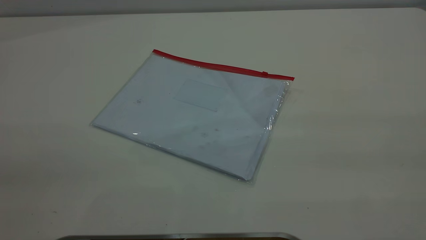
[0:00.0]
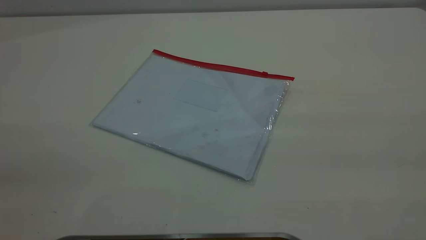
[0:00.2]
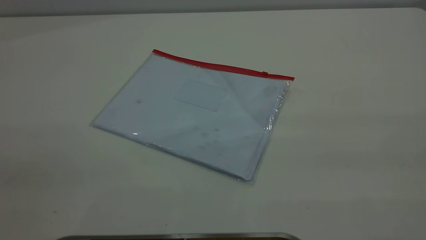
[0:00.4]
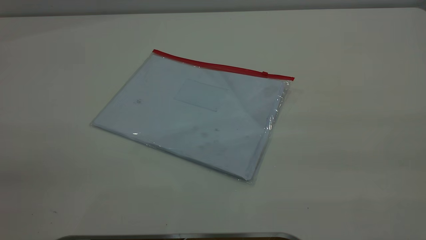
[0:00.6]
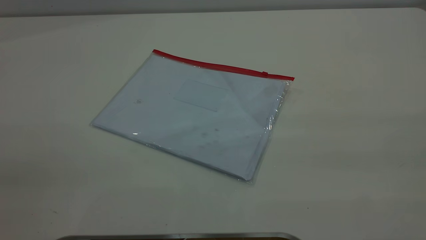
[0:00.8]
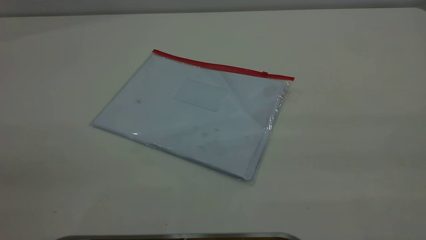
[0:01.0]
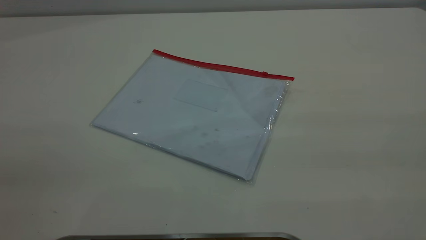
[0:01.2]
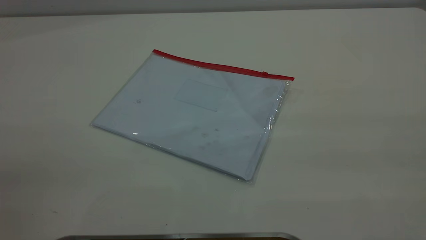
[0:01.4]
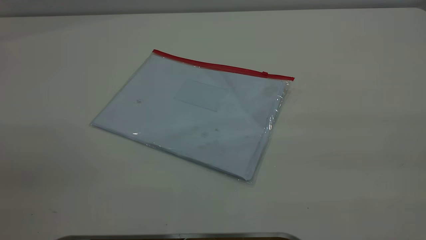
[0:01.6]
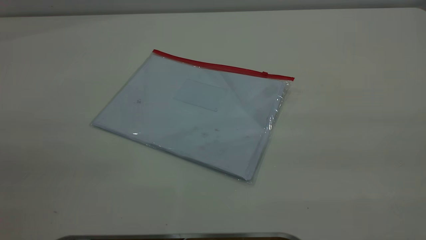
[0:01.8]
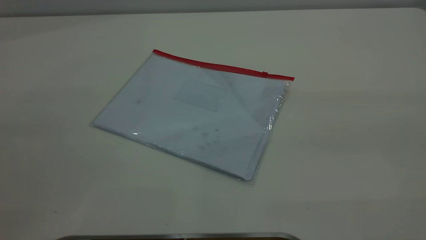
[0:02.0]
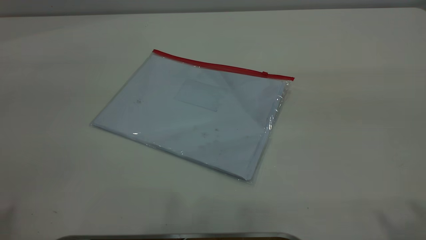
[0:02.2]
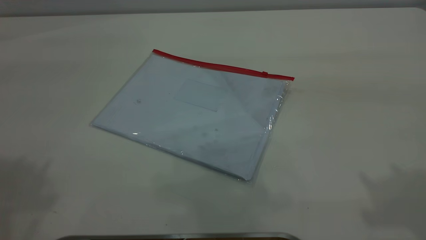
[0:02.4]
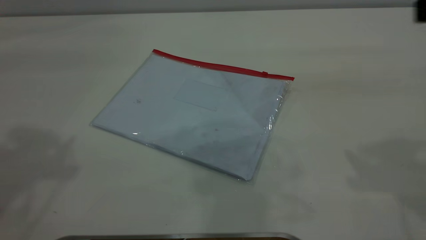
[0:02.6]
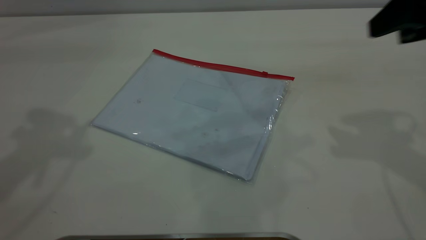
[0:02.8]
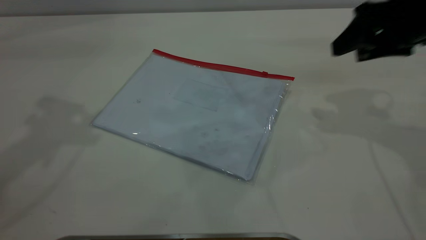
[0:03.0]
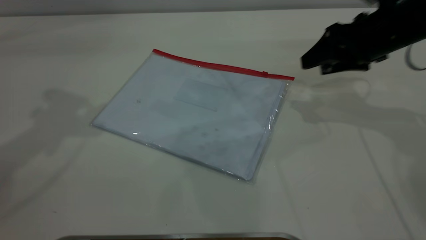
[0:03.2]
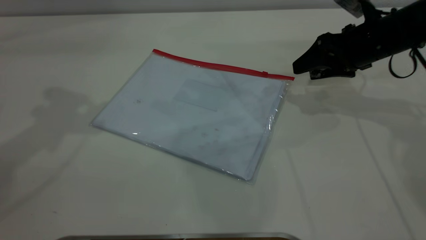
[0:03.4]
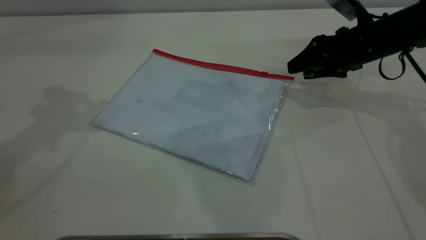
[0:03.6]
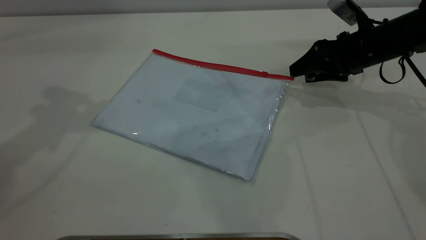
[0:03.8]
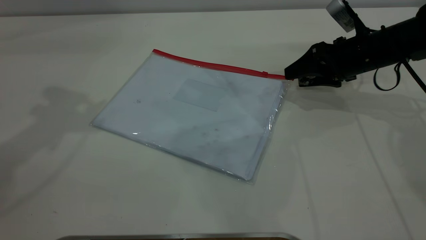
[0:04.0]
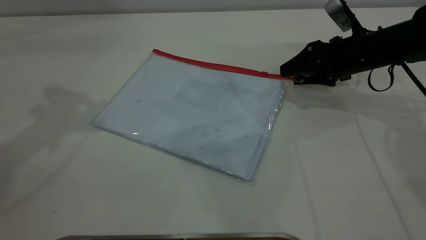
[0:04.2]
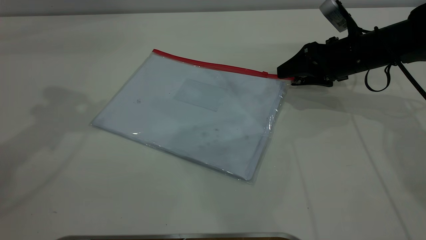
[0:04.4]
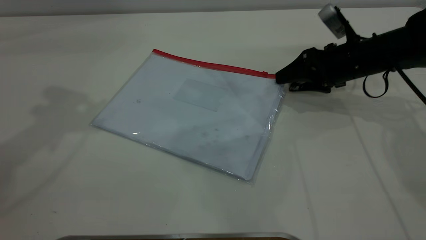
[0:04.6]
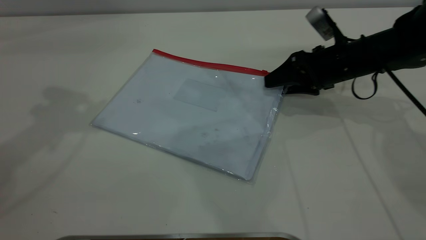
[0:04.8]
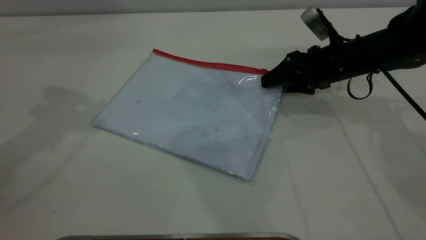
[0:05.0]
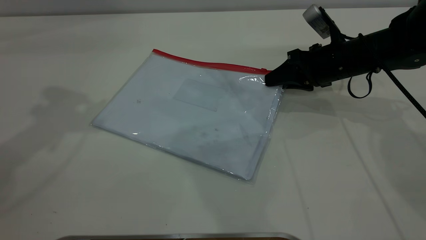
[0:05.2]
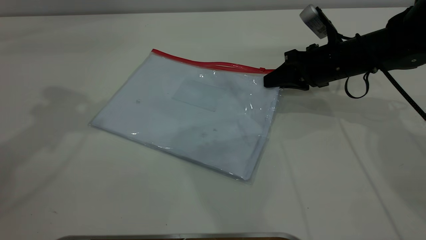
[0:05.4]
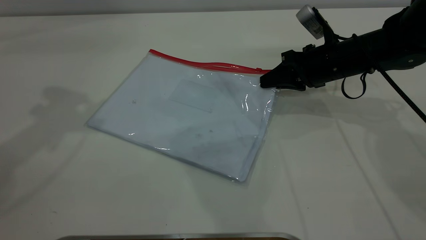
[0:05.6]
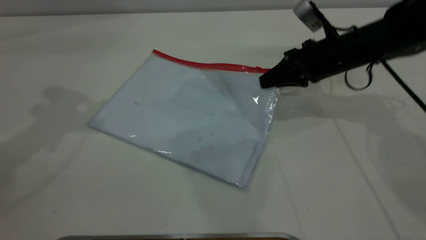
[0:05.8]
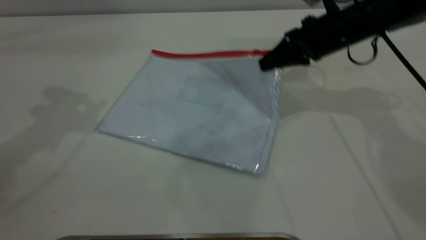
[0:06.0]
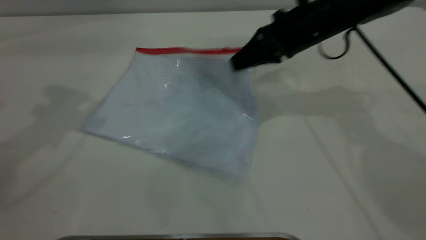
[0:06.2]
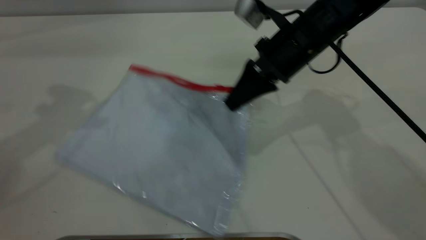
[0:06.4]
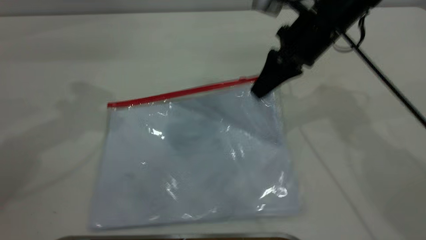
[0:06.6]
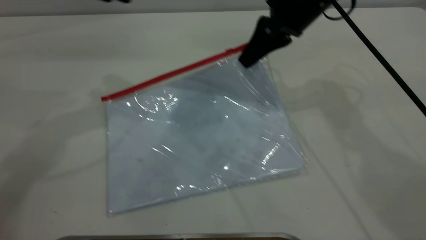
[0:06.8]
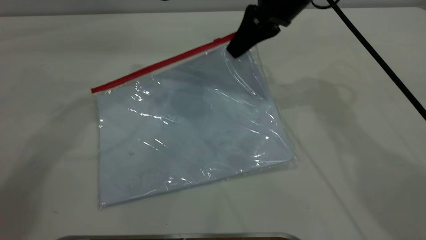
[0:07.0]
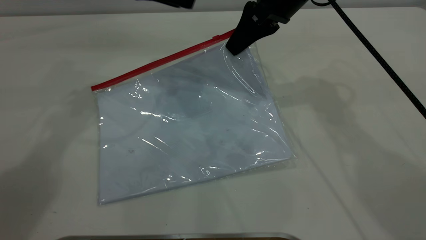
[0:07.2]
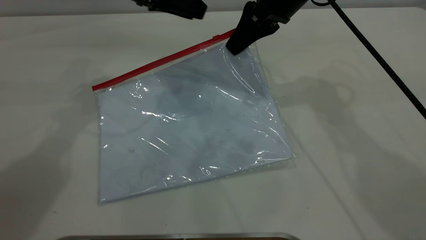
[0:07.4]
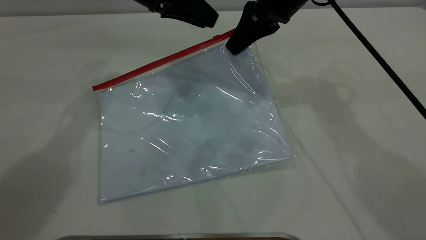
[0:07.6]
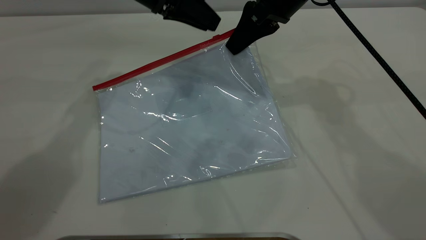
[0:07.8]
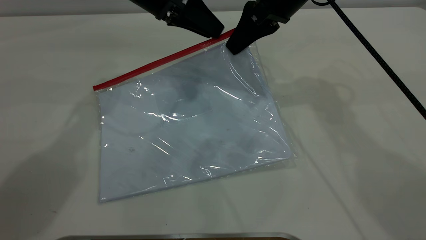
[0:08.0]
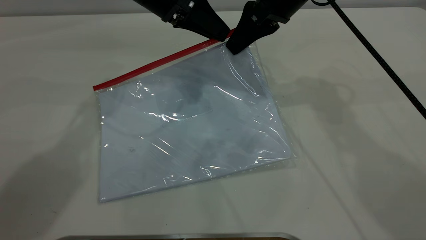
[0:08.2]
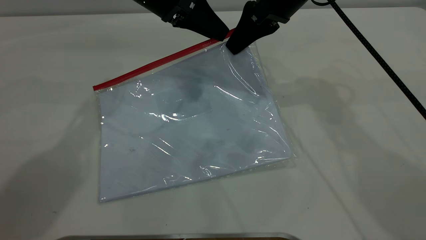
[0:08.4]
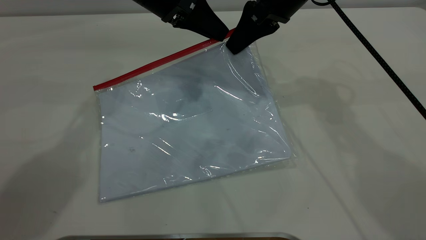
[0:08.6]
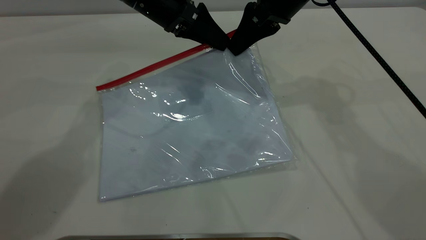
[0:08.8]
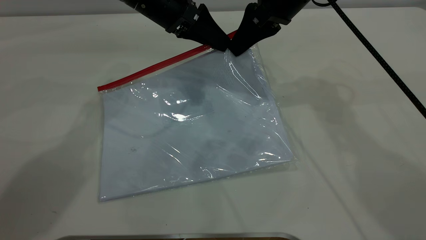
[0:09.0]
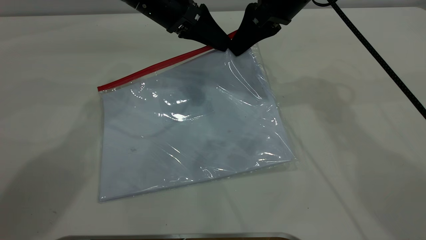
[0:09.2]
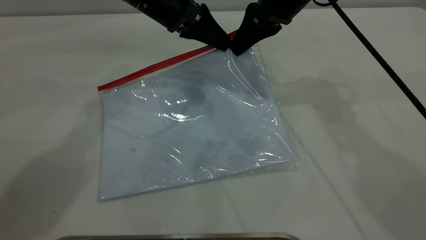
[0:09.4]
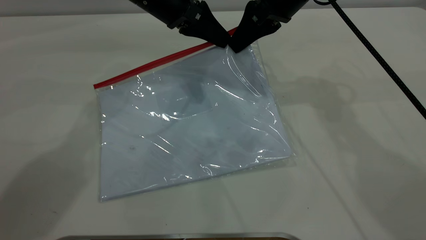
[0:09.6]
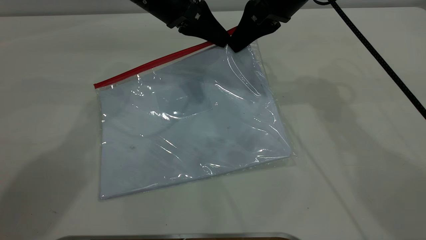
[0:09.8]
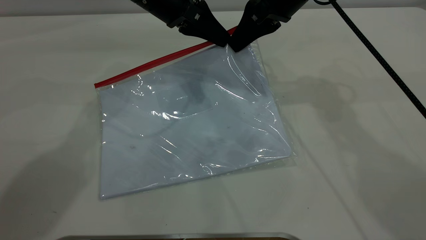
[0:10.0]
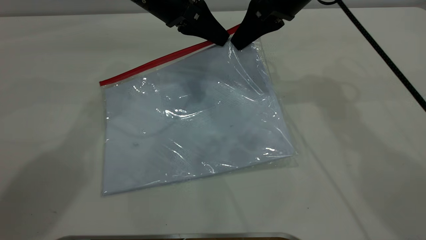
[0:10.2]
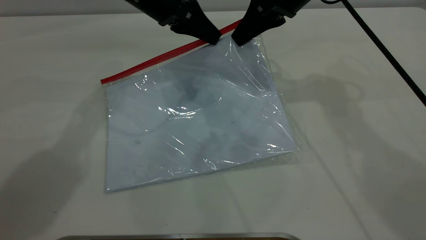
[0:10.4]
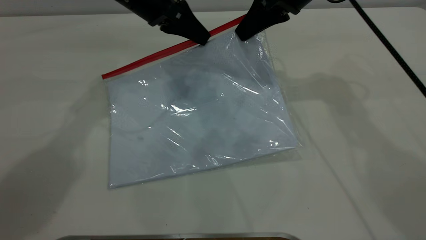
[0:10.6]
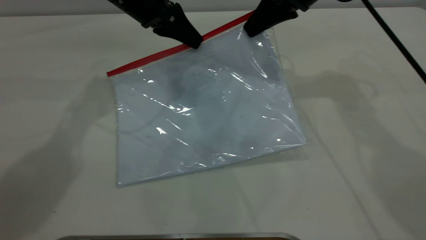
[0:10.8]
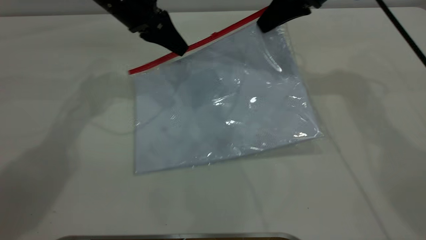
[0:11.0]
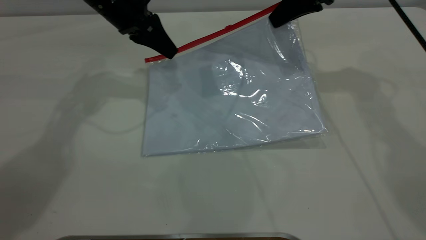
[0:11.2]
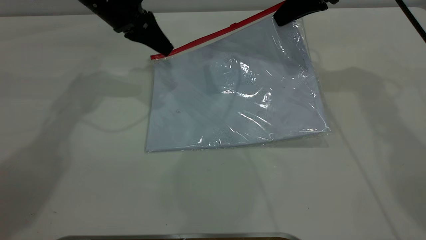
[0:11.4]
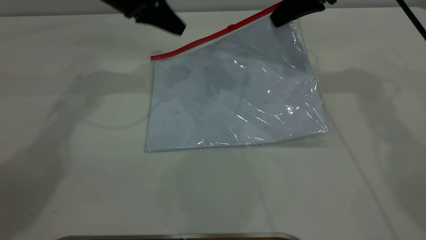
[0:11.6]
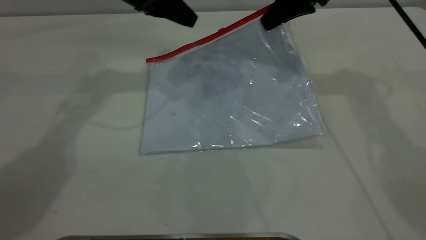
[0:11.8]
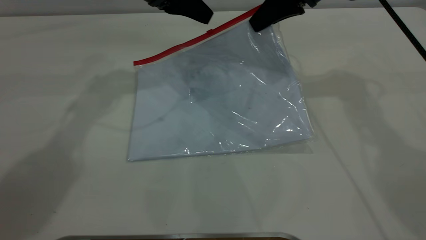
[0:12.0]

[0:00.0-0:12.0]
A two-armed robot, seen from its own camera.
Step, 0.0 to 6.0 s: Pick up the transparent plastic bag with the right gripper.
0.0 to 1.6 s: The two grippers keep their place.
1.6 to 3.0 s: The right gripper travels forward and downward by about 40 cm.
3.0 to 4.4 s: The right gripper travels downward and forward by roughly 15 cm.
4.4 to 6.0 s: The right gripper shifts about 10 cm upward and to the left, and closes.
6.0 to 7.6 s: The left gripper is displaced to the right, downward and forward by roughly 25 cm. The right gripper shifts roughly 10 cm upward and to the left.
7.6 to 9.0 s: The left gripper closes up.
9.0 to 10.4 s: The left gripper closes.
10.4 to 12.0 s: The left gripper opens its fingers.

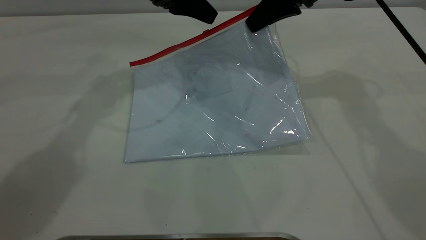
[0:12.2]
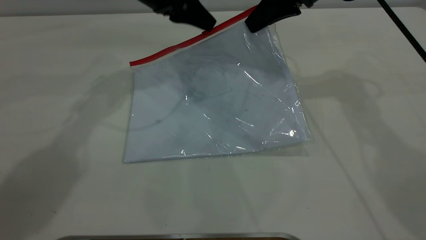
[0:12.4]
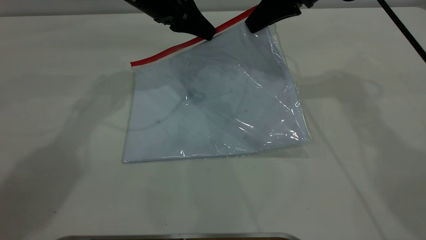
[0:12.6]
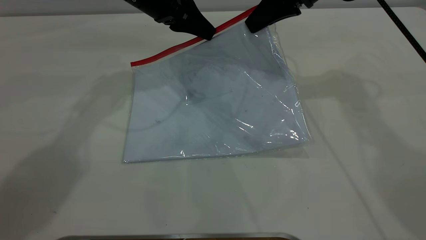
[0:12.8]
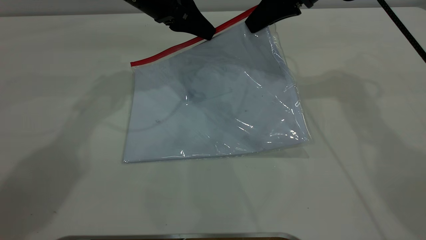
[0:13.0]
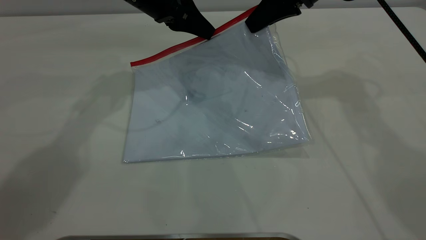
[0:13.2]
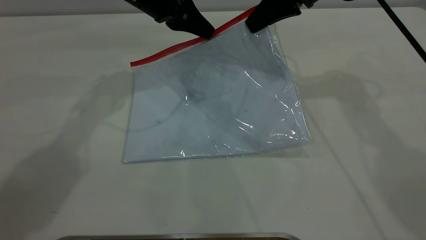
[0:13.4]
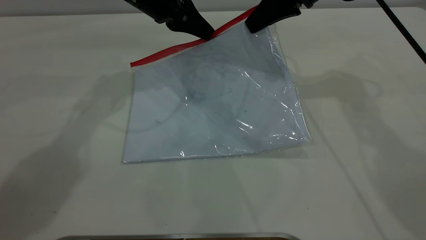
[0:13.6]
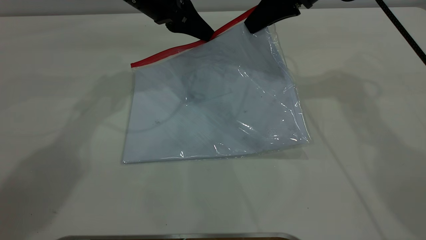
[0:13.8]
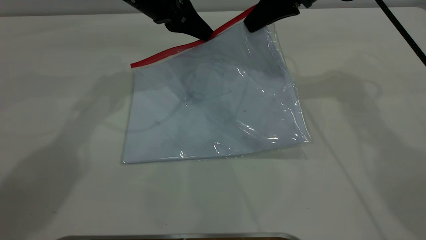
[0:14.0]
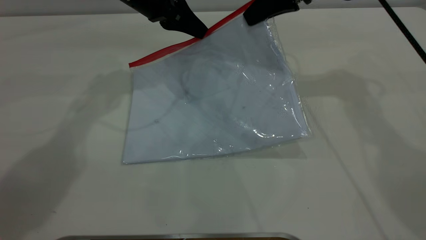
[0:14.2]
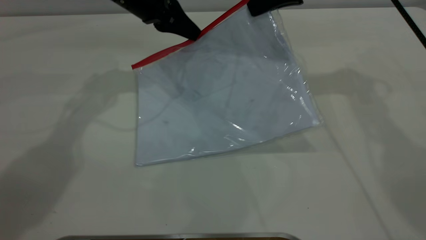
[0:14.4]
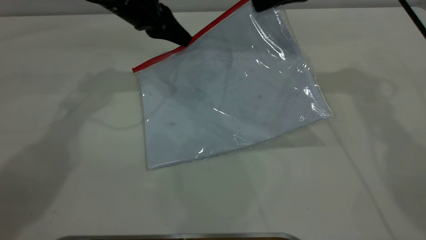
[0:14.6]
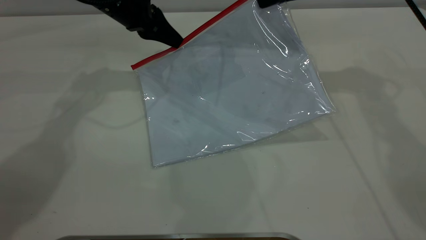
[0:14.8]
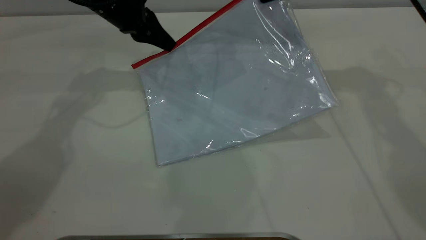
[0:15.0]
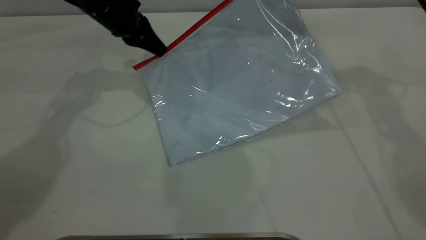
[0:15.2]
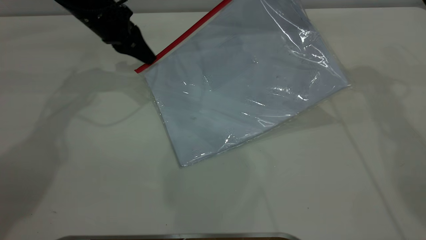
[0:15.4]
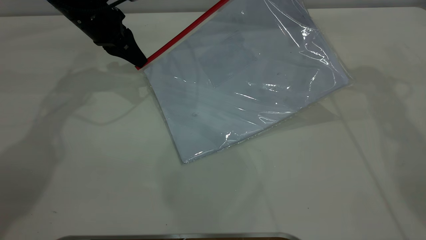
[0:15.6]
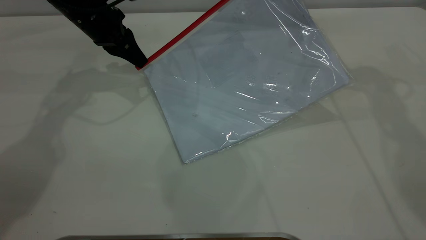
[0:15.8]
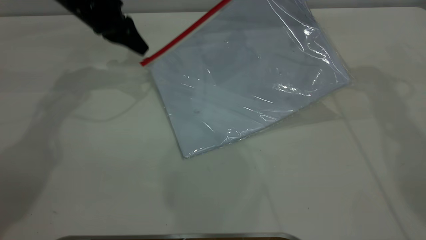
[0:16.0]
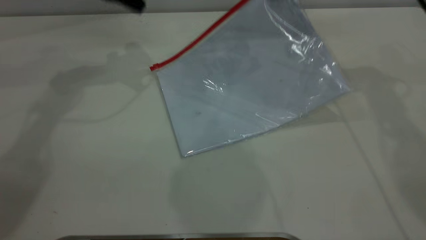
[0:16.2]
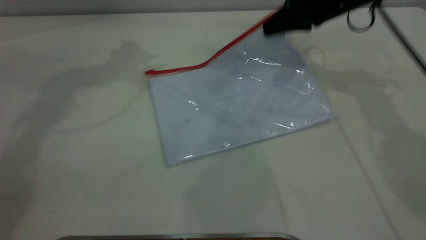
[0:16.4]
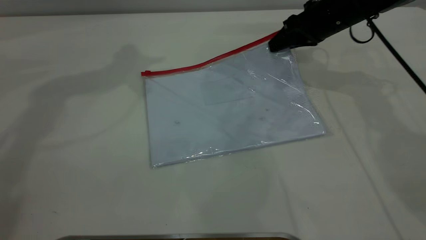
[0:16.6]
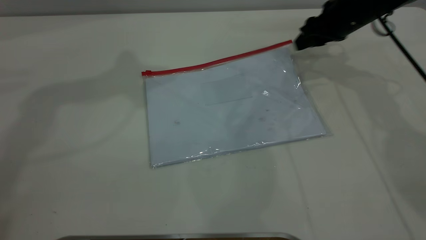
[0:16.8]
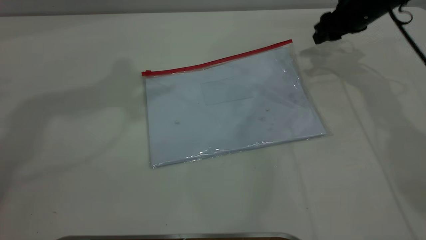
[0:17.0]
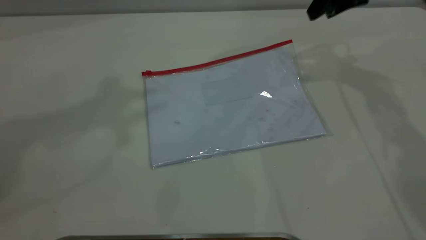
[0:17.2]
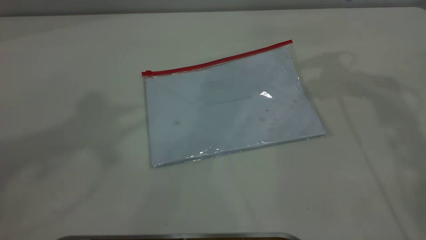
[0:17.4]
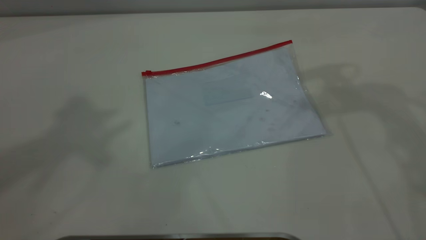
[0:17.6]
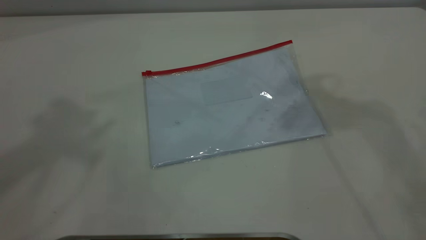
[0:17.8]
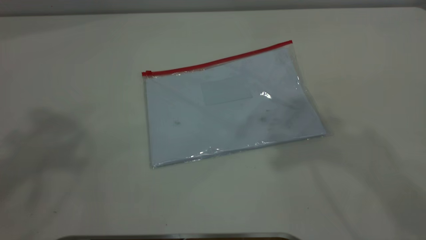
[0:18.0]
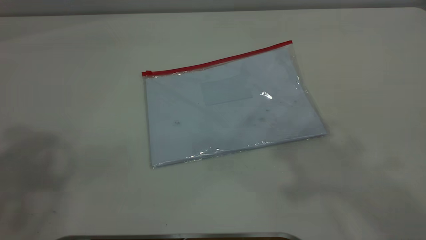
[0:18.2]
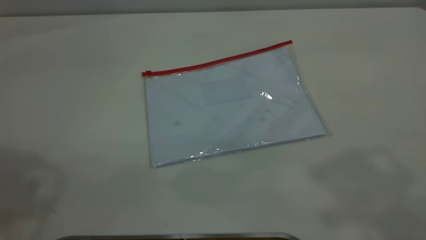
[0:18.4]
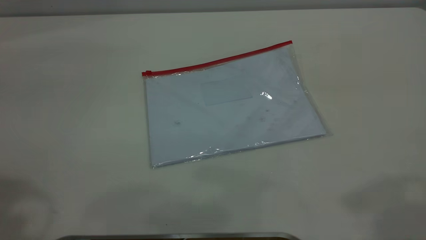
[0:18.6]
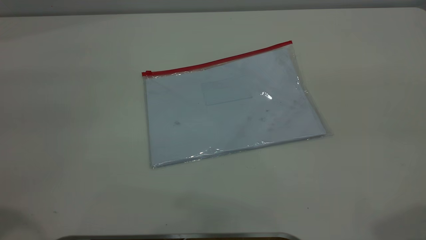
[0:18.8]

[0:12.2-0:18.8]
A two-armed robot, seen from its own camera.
Step, 12.2 to 16.0 s: Pulling up the zipper on the transparent plastic bag with the left gripper to close it.
Step, 16.2 to 16.8 s: Place the transparent plastic bag.
12.2 to 13.8 s: The left gripper closes.
13.8 to 15.4 s: The right gripper moves roughly 5 cm, while the left gripper moves to the left, approximately 10 cm.
15.4 to 17.2 s: The right gripper moves approximately 10 cm downward and comes back, and opens up, while the left gripper heads upward, covering about 40 cm, and opens its fingers.
17.2 to 18.8 s: The right gripper heads backward and upward, covering approximately 40 cm.
